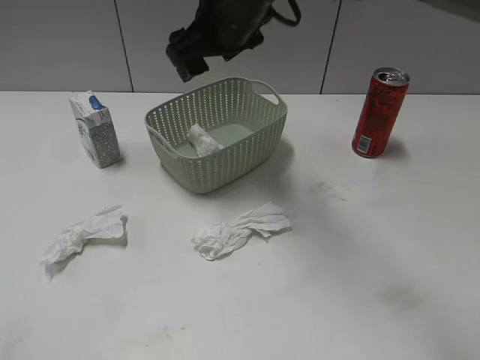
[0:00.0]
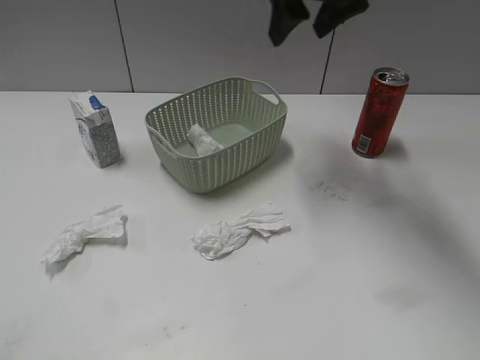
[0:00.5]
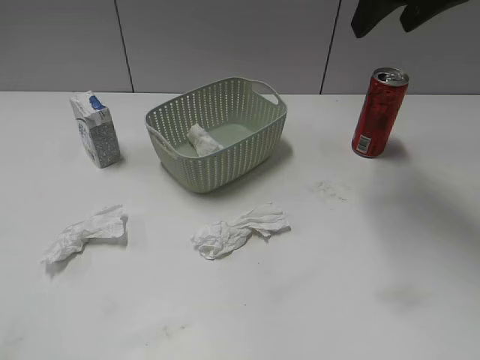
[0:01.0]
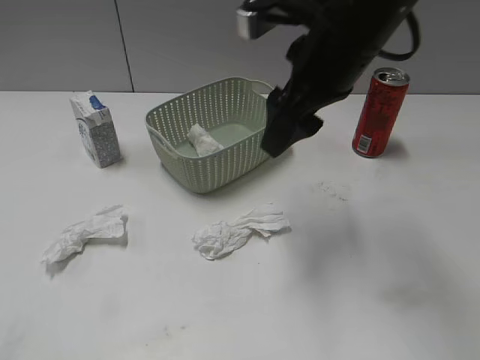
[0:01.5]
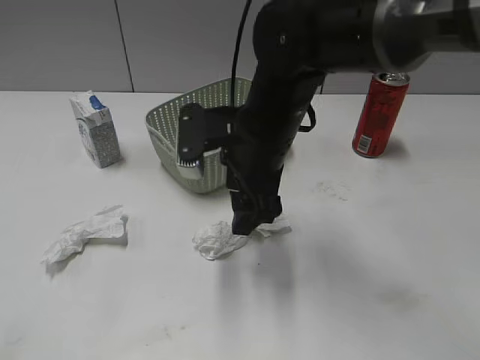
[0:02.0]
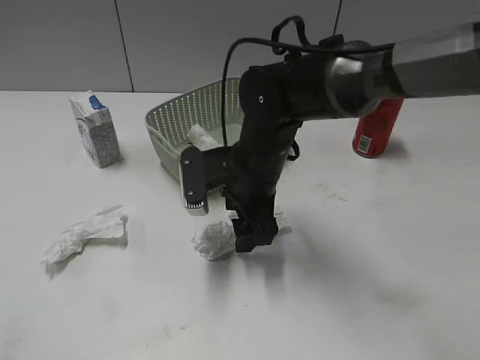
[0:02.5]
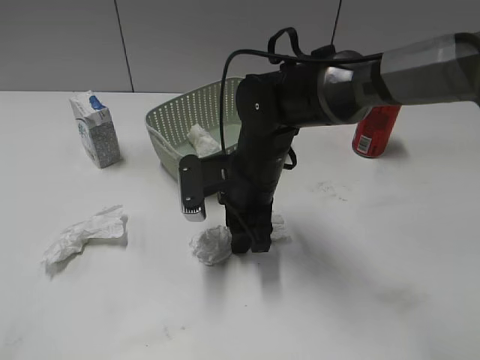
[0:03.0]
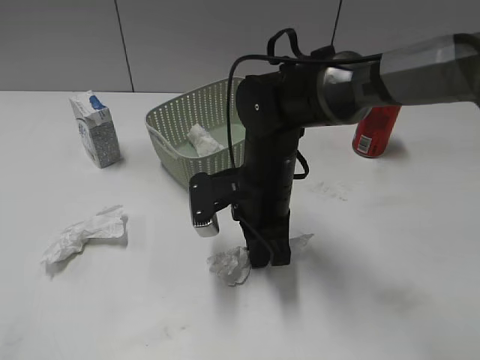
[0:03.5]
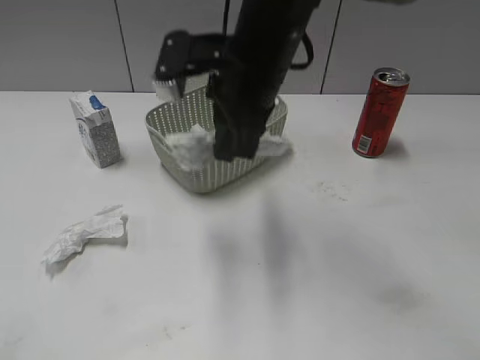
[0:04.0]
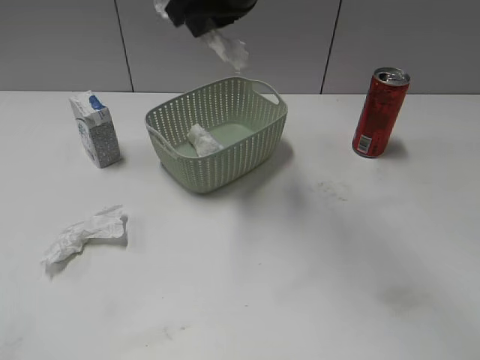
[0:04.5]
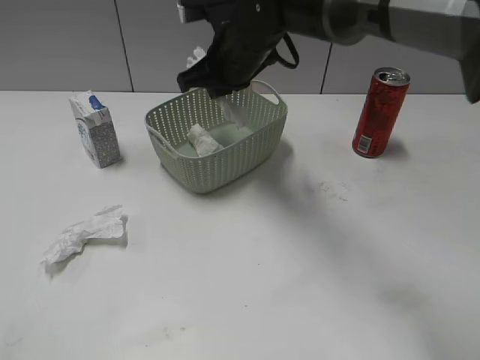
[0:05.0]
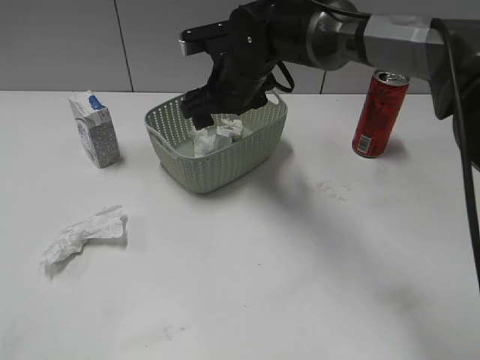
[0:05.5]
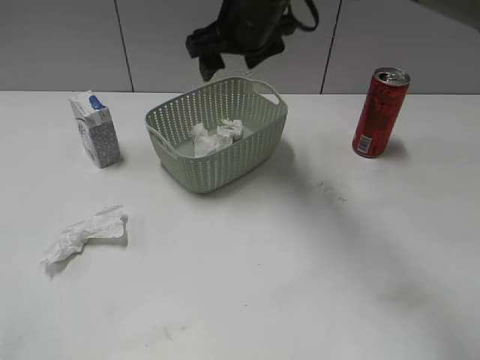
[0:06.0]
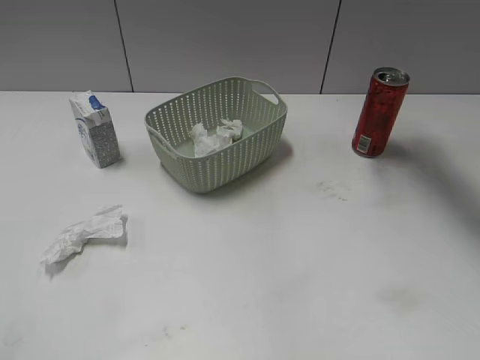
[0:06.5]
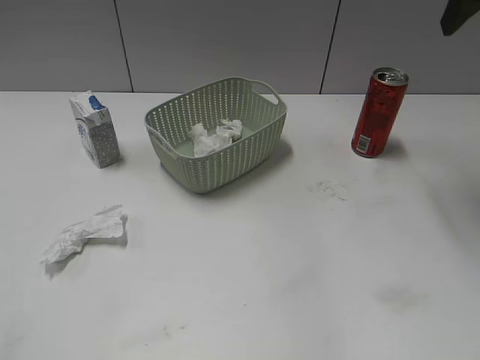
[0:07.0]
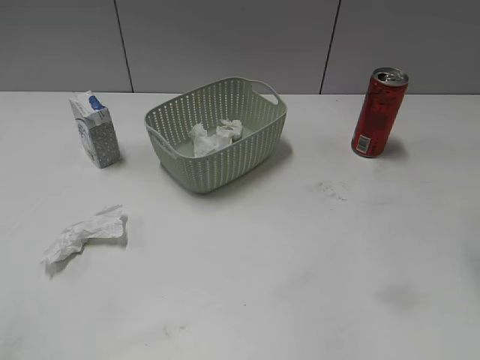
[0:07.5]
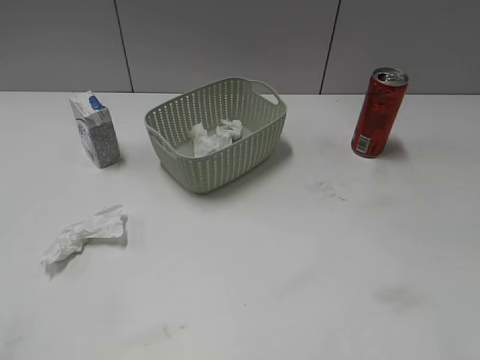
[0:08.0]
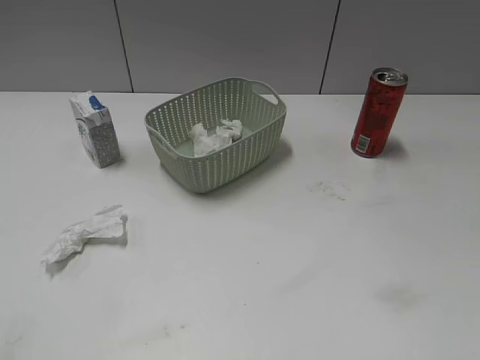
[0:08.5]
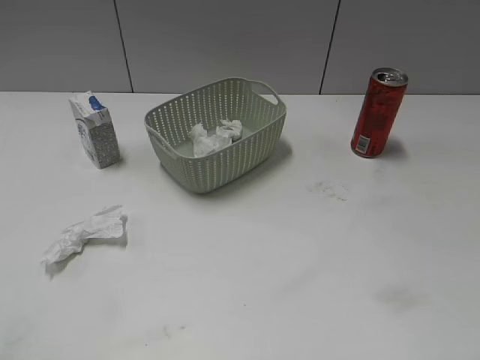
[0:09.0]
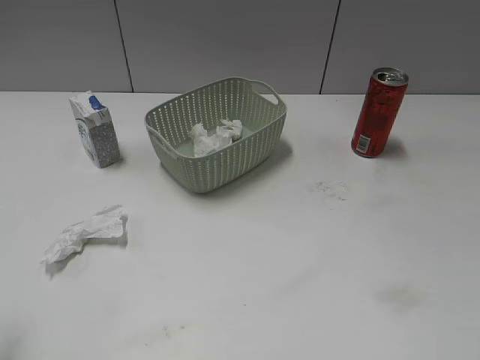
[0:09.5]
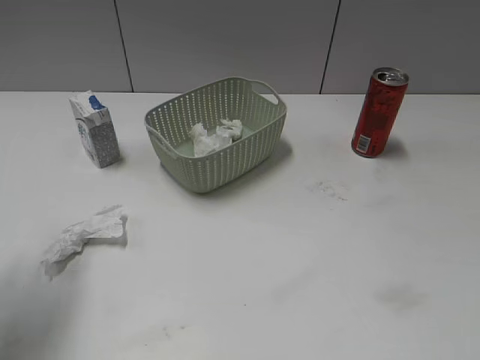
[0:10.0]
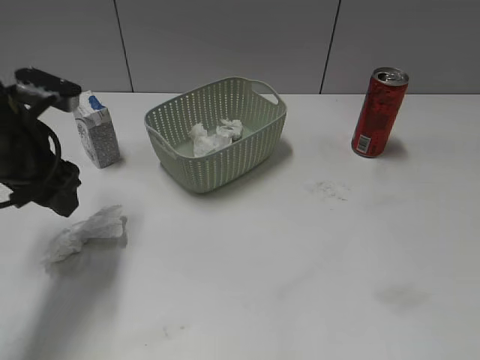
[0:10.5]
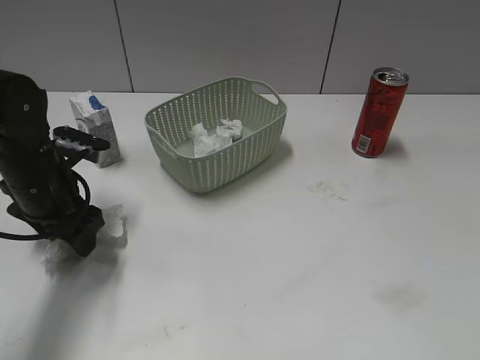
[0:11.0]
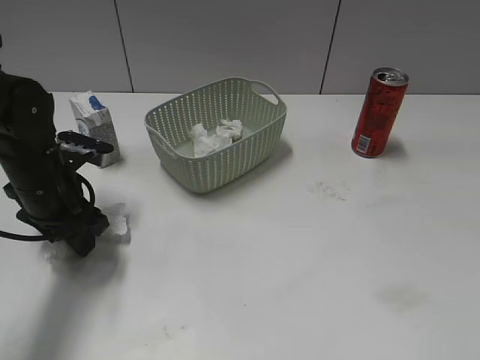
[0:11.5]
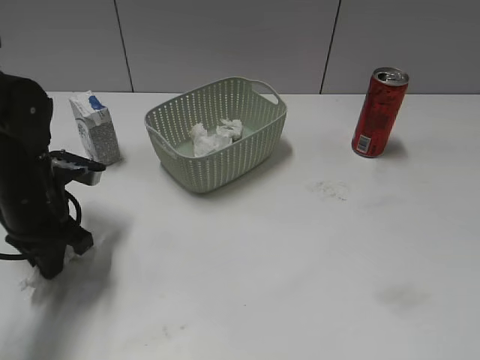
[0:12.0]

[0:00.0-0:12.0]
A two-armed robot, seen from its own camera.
Step, 0:00.0 to 0:03.5: Grasp the waste paper with right gripper.
Step, 0:04.0 to 0:05.0: Place the waste paper in the basket with right gripper.
Step, 0:05.5 to 0:11.5: Grasp the waste paper with left gripper.
0:00.0 to 0:02.0: The right gripper moves backward and downward, about 15 cm, and reaches about 20 cm to the right, then returns.
0:02.0 to 0:04.0: The right gripper shifts approximately 5 cm upward, and closes its fingers.
0:04.0 to 0:06.0: The right gripper swings up and down, some 15 cm each way, with 2 reversals, and opens its fingers.
0:06.0 to 0:08.0: The right gripper is displaced backward and to the right by some 40 cm.
0:08.0 to 0:10.0: The left gripper travels forward by about 20 cm.
0:10.0 to 0:12.0: The left gripper shifts some 20 cm downward and forward, and closes.

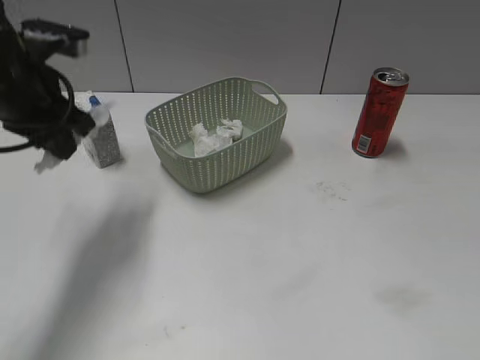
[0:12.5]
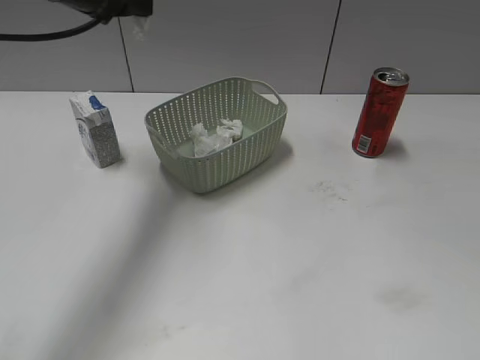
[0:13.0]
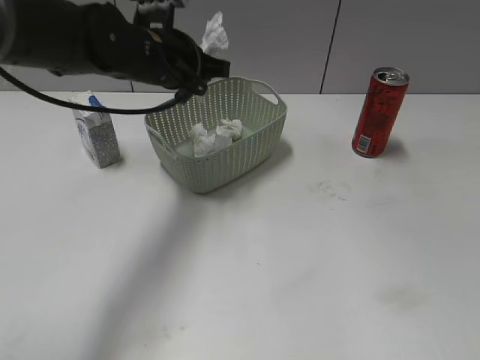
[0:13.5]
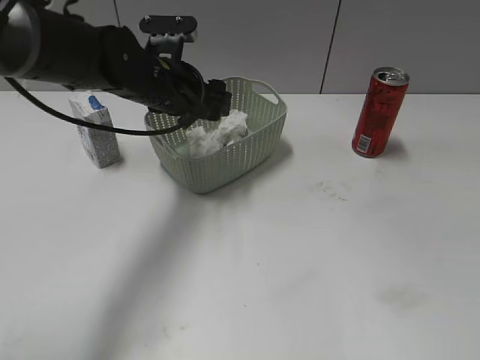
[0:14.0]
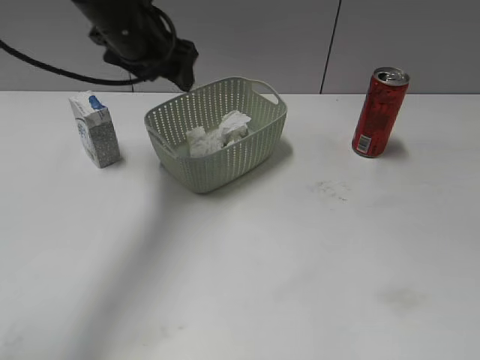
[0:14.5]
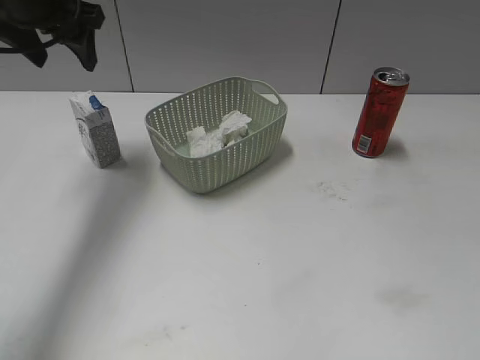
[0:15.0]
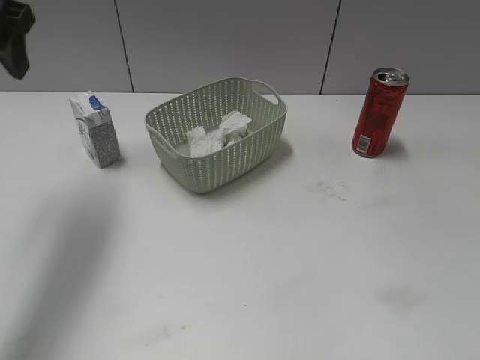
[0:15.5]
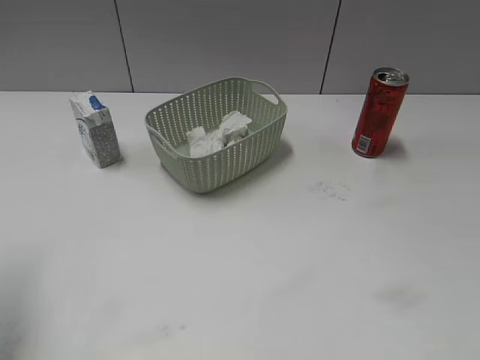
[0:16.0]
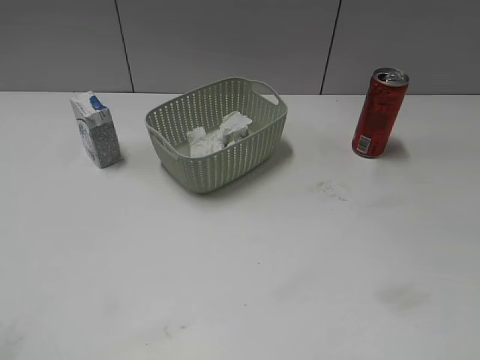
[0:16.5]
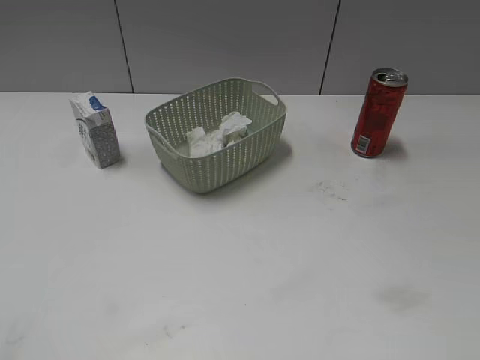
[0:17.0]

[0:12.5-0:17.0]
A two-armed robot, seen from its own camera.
Step, 0:12.5 to 0:13.5: Place the waste paper in the basket with left gripper.
0:12.5 to 0:14.5: The left gripper swings up and down, approximately 15 cm each way, with 2 reversals, and opens up.
0:14.5 to 0:17.0: The left gripper moves backward and to the left, about 40 cm.

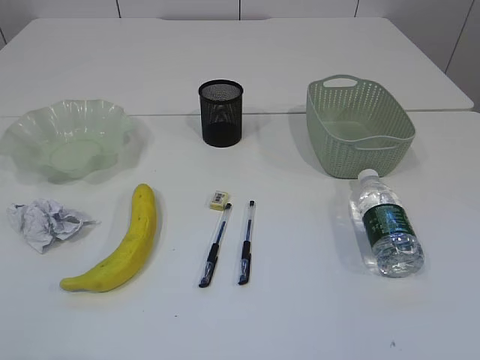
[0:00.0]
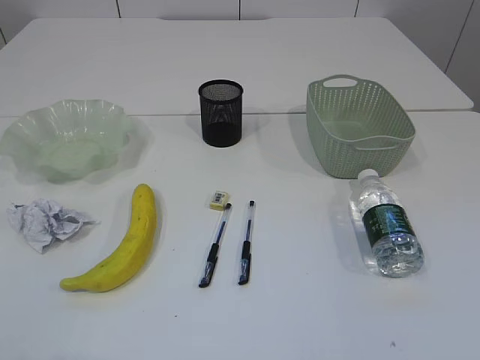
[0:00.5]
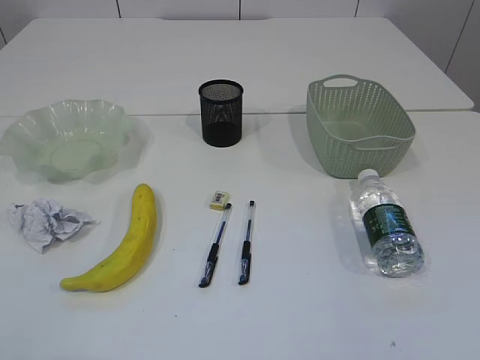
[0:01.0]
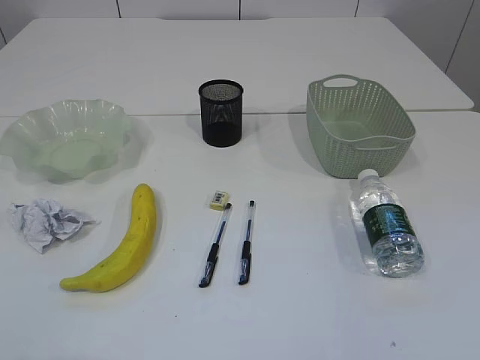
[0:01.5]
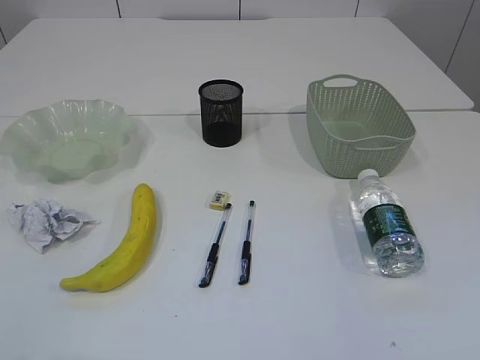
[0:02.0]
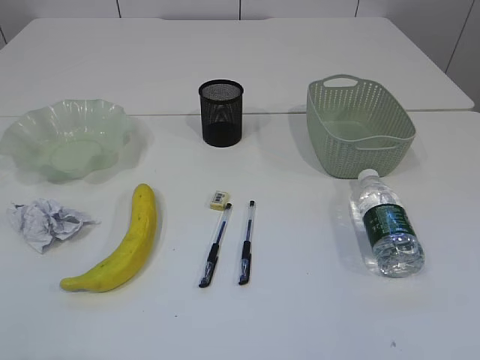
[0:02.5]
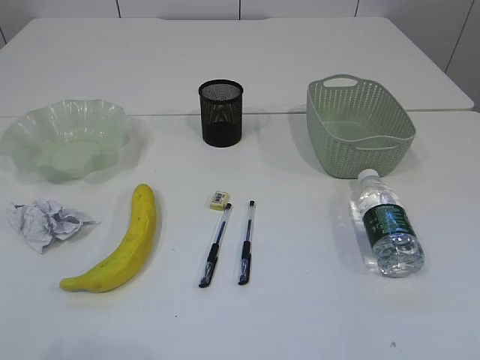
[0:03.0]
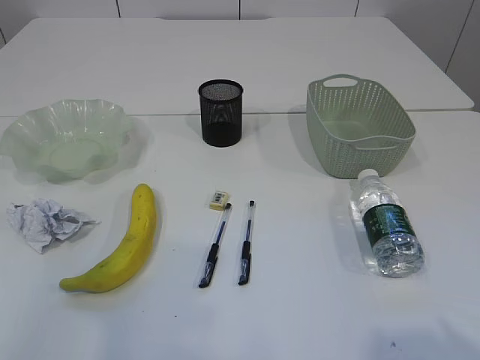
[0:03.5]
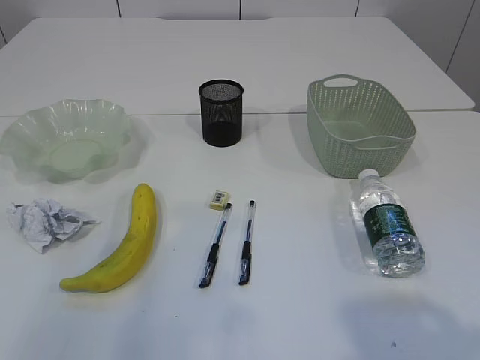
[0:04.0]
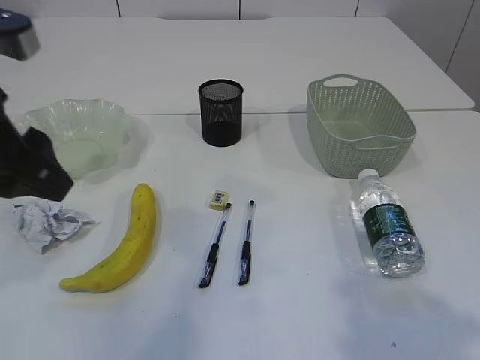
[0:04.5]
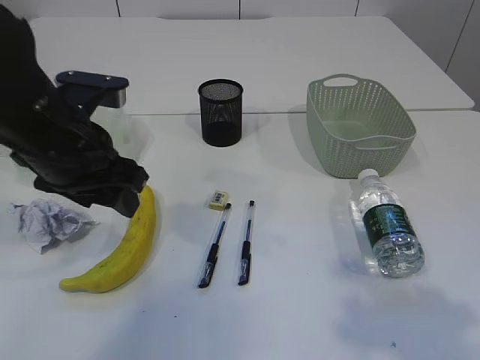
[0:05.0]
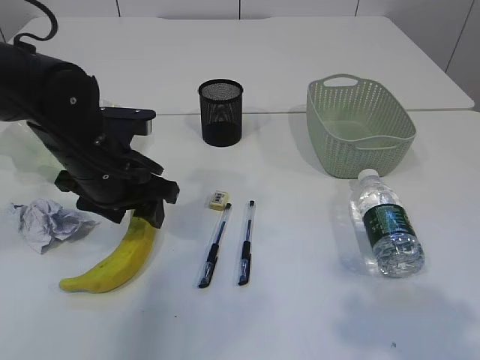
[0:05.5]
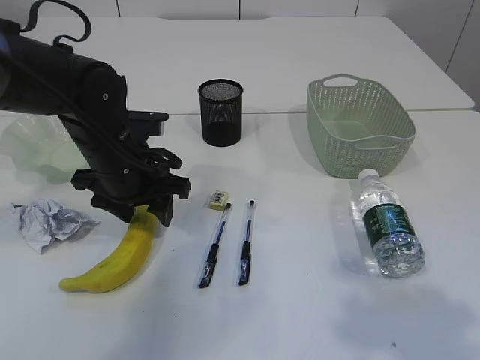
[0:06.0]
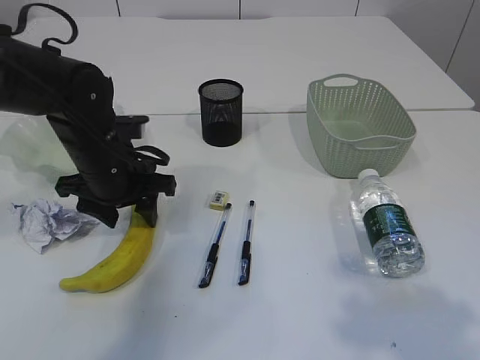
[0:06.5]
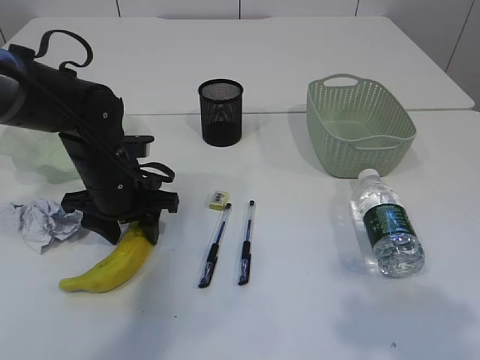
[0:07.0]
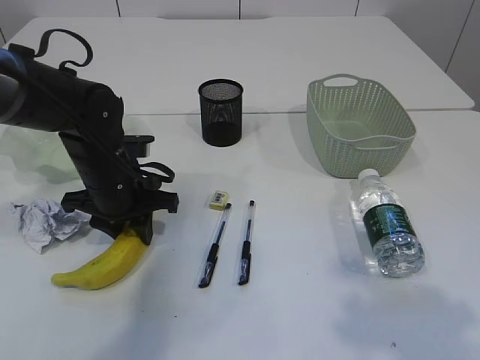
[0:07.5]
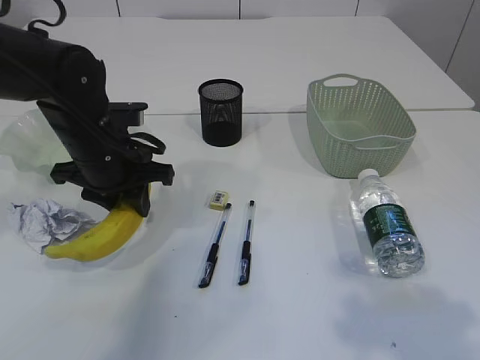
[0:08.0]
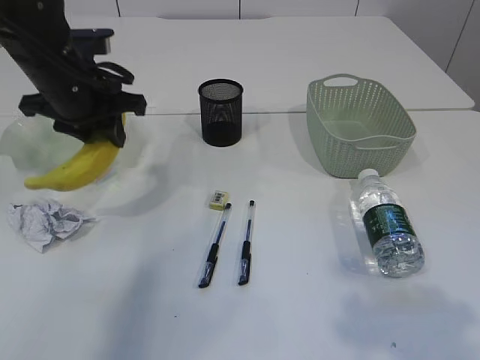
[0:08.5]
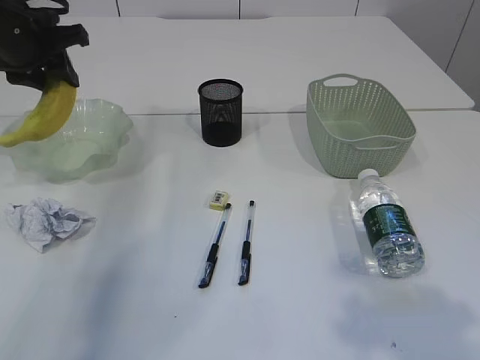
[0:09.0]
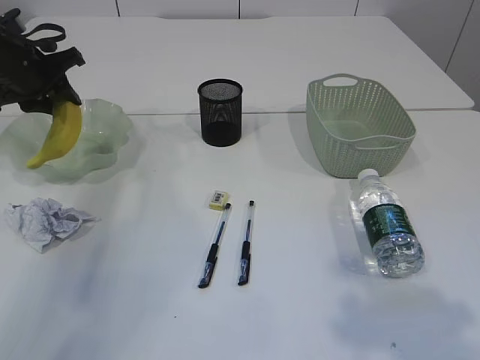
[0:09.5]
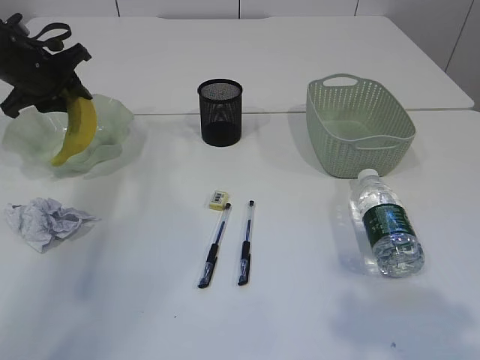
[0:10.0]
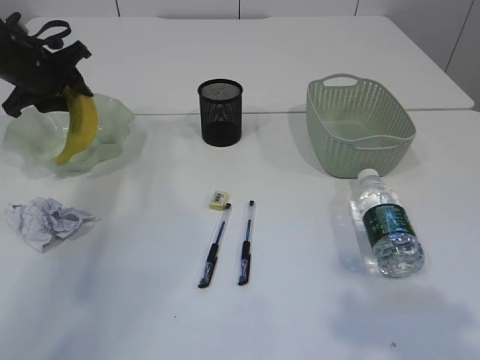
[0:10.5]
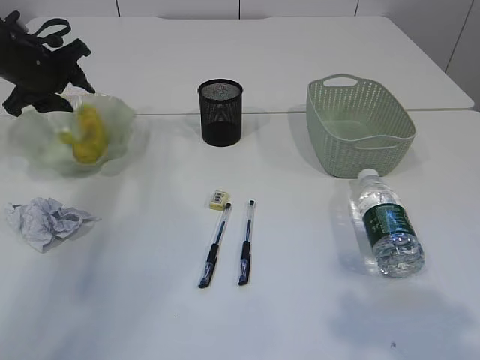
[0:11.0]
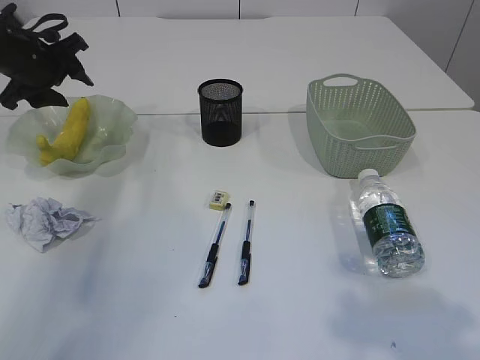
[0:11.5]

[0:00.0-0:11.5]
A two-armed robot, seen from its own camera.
0:02.0 to 0:04.0: The right gripper heads forward and upward, covering roughly 10 cm, while the left gripper goes about 15 cm forward and upward.
0:04.0 to 0:06.0: The left gripper travels forward, downward and to the right by roughly 30 cm.
0:06.0 to 0:07.5: The left gripper closes its fingers.
0:07.5 to 0:09.5: The left gripper goes approximately 20 cm to the left, forward and upward.
0:09.5 to 0:11.5: The grippers stay close to where they were, moving slightly.
